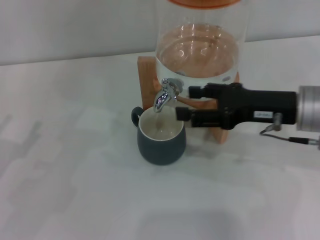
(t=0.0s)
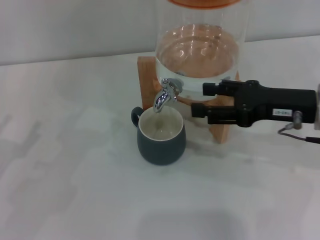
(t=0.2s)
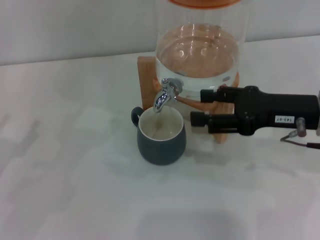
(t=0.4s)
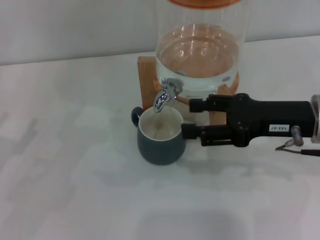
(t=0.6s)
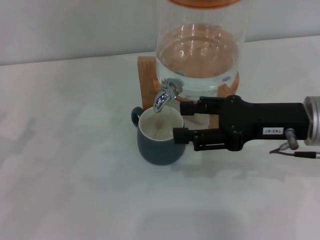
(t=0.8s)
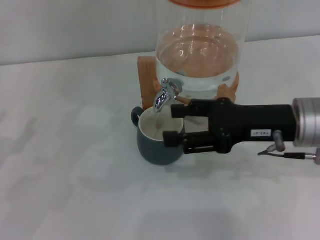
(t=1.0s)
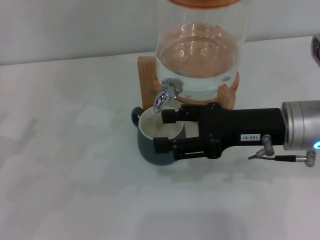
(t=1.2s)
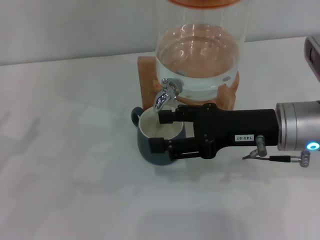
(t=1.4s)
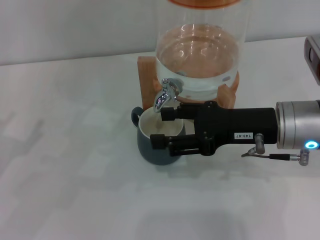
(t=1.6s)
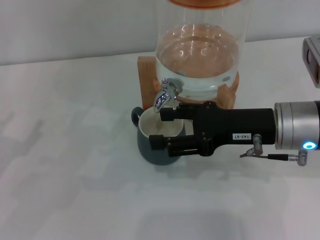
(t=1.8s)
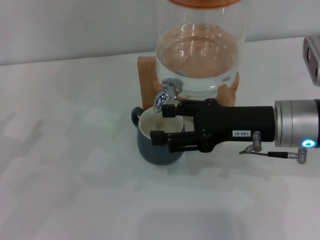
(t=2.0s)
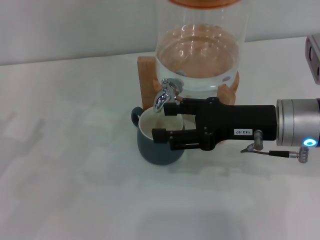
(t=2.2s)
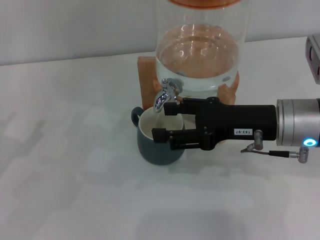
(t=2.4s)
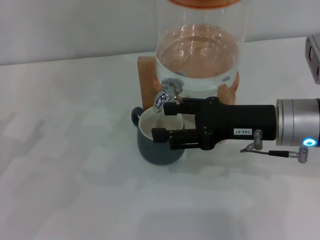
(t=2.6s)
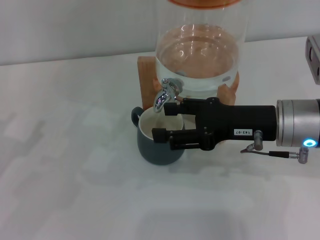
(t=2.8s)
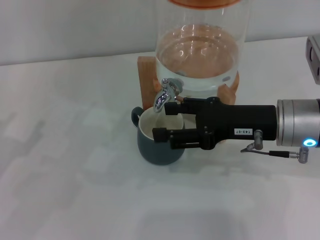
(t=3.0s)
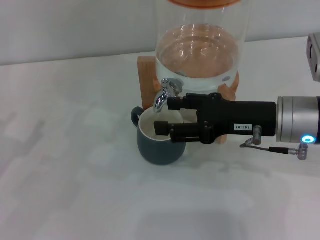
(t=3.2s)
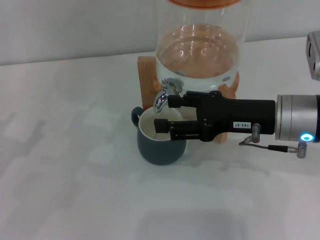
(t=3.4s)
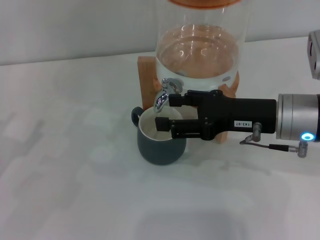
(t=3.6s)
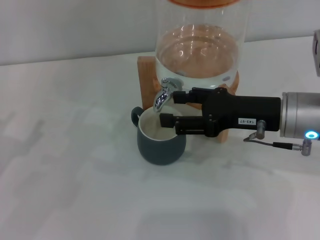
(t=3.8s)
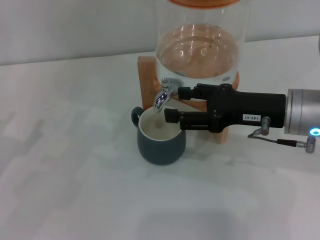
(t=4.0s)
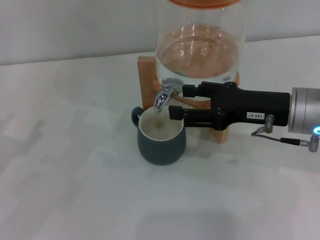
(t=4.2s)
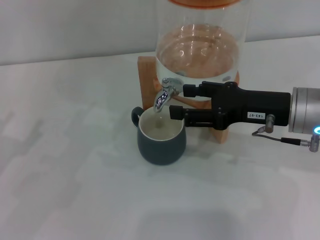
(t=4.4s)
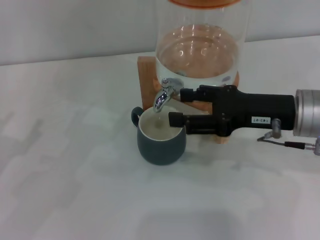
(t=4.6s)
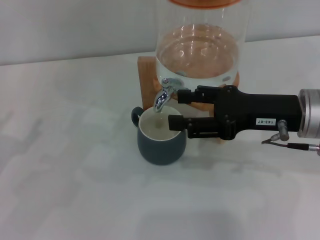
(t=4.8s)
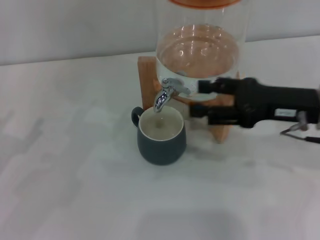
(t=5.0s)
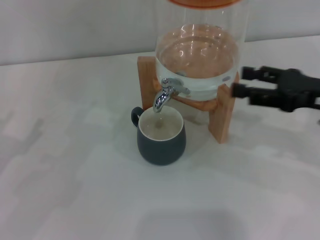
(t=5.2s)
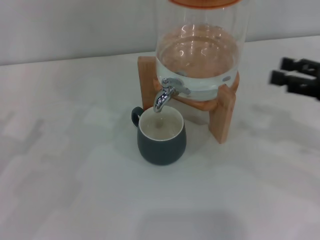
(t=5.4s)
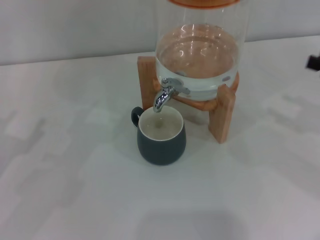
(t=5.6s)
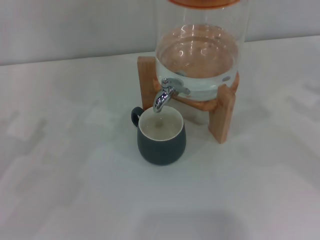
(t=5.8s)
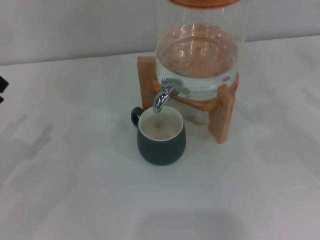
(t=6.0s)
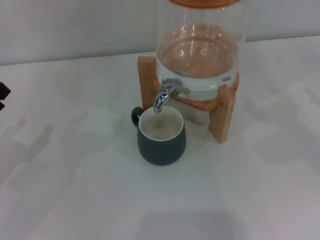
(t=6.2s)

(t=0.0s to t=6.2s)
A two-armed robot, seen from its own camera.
Task of the whole recording: the left gripper pick up the black cup and place it horizontally under the faucet, the right gripper turn on the faucet to fill the cup, and then turn off the faucet.
Step, t=0.0s - t=4.6s: Close the dispenser valve with the right gripper.
t=0.0s - t=4.6s: The grippers stay close to where they were, moving slightly.
t=4.6s - t=6.2s: The right gripper goes some 20 cm to the right.
